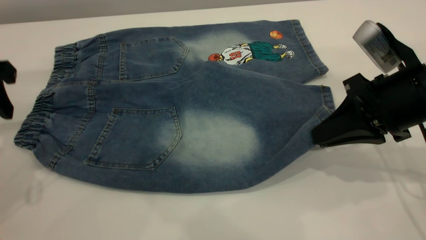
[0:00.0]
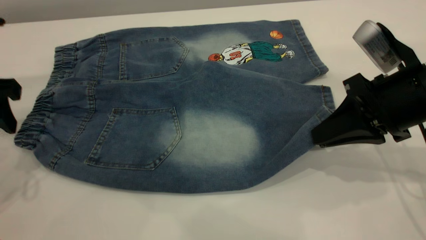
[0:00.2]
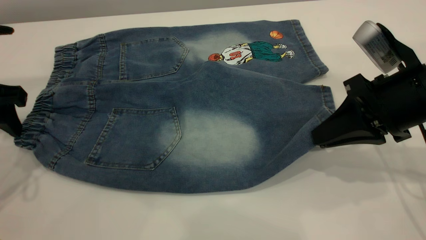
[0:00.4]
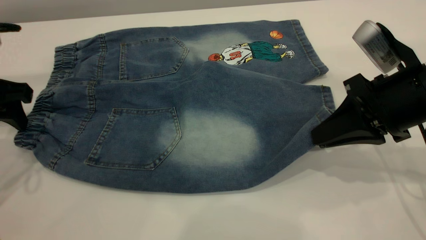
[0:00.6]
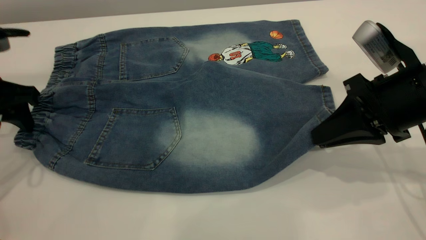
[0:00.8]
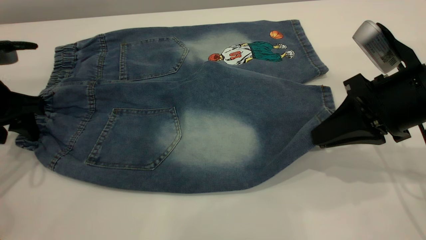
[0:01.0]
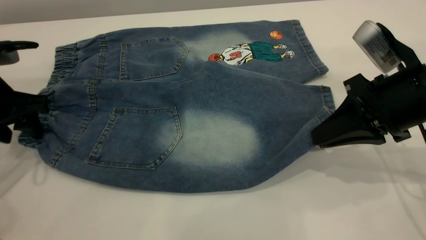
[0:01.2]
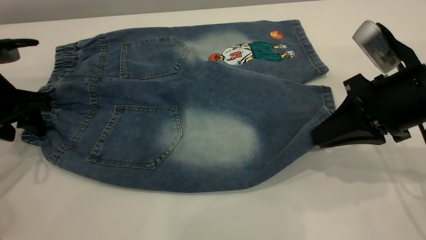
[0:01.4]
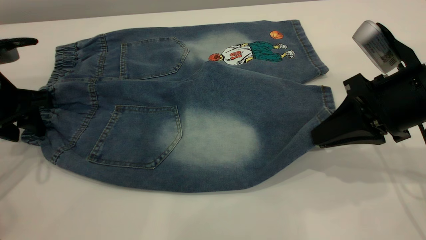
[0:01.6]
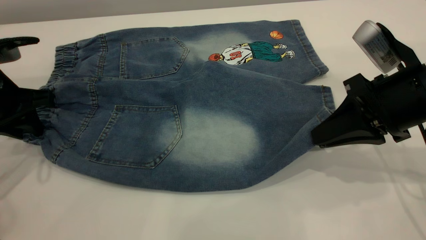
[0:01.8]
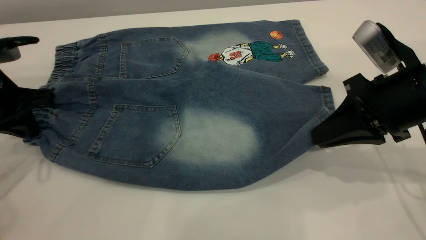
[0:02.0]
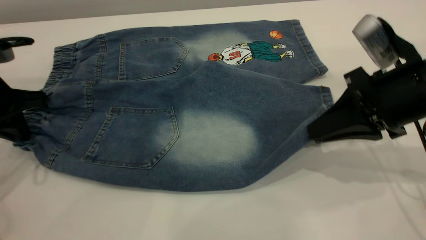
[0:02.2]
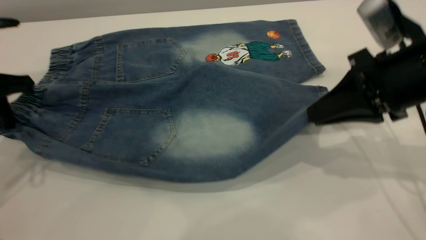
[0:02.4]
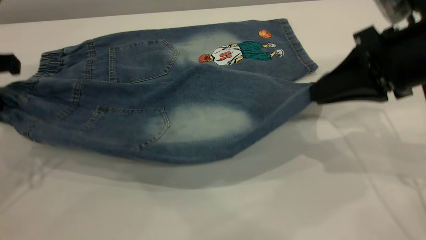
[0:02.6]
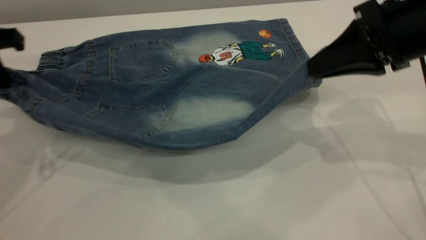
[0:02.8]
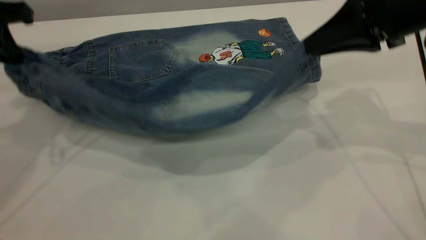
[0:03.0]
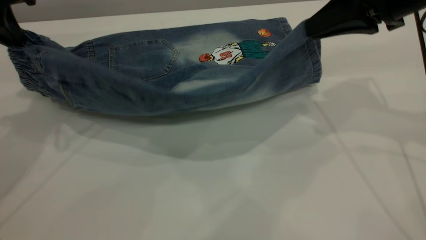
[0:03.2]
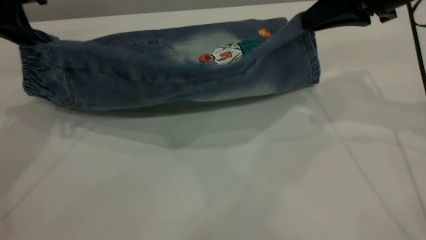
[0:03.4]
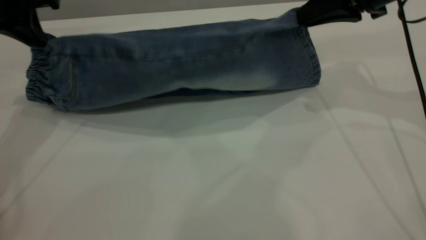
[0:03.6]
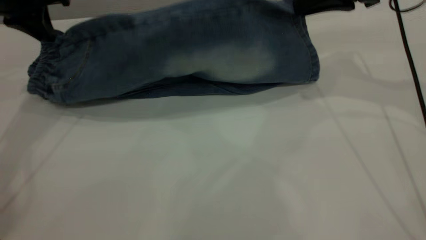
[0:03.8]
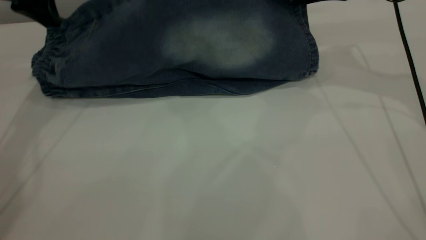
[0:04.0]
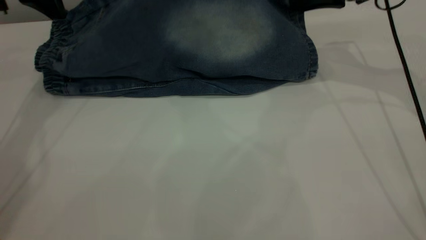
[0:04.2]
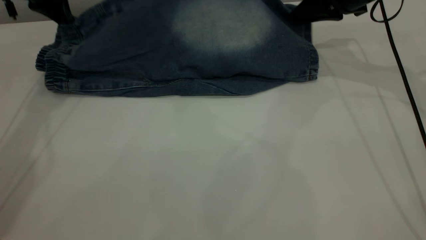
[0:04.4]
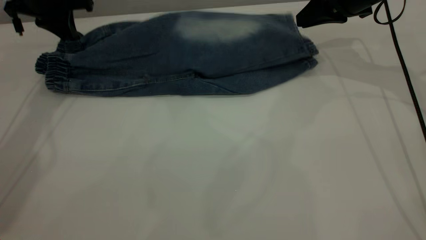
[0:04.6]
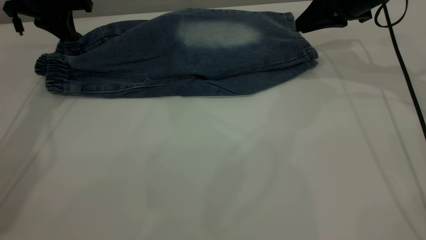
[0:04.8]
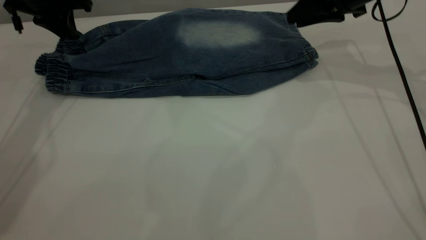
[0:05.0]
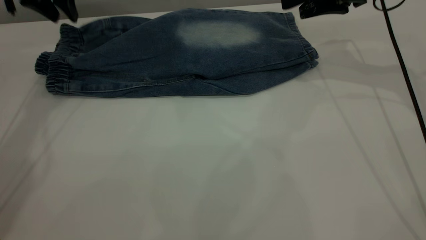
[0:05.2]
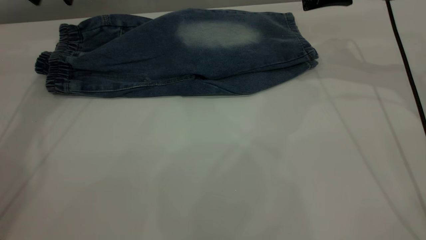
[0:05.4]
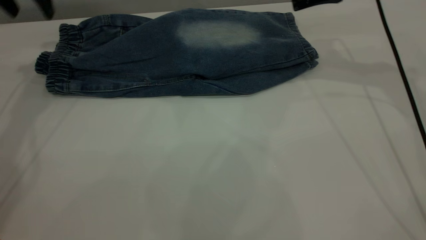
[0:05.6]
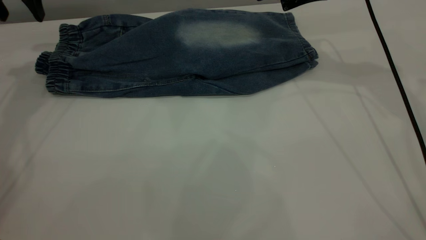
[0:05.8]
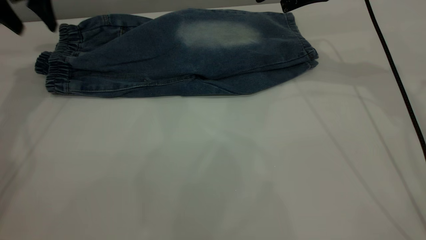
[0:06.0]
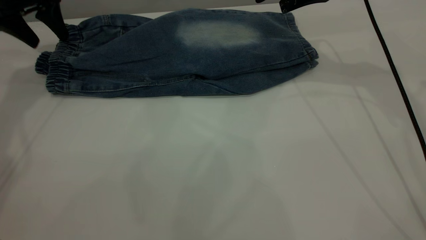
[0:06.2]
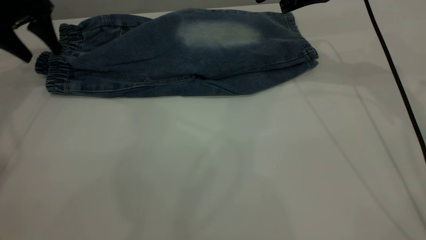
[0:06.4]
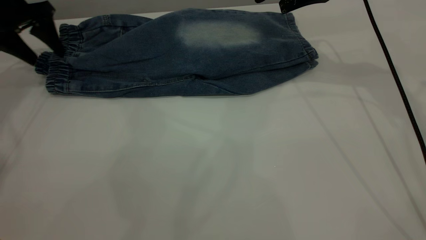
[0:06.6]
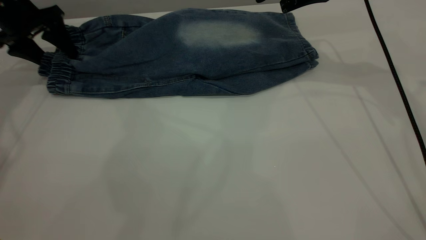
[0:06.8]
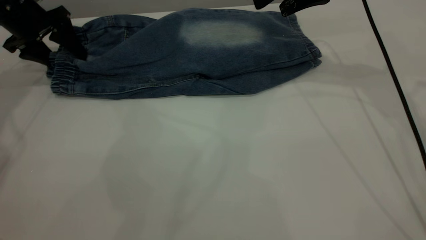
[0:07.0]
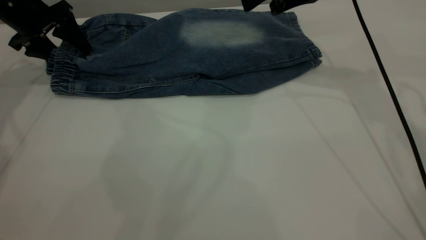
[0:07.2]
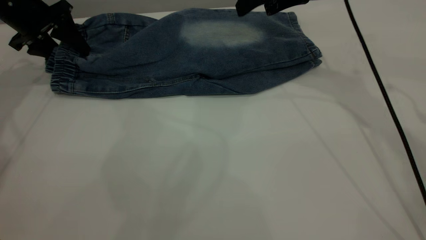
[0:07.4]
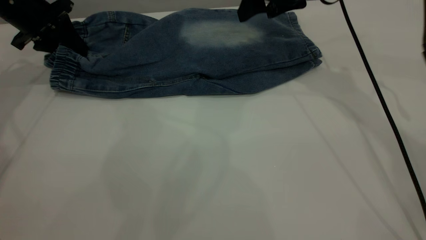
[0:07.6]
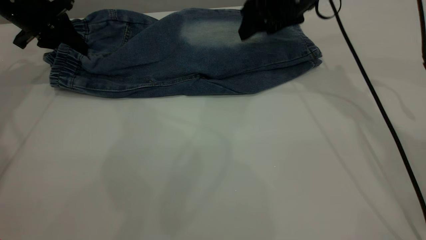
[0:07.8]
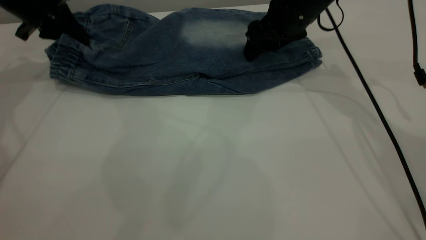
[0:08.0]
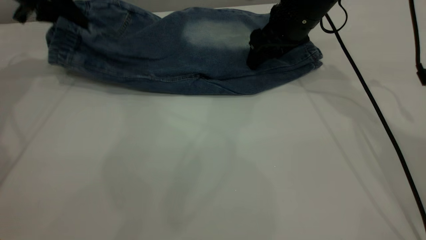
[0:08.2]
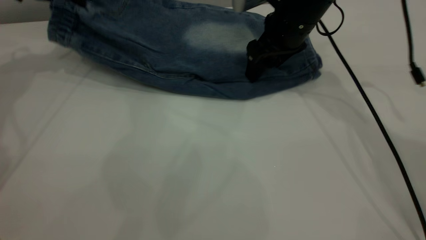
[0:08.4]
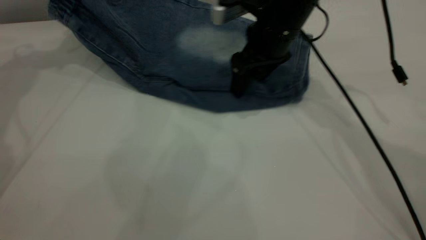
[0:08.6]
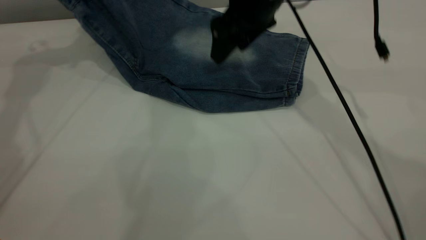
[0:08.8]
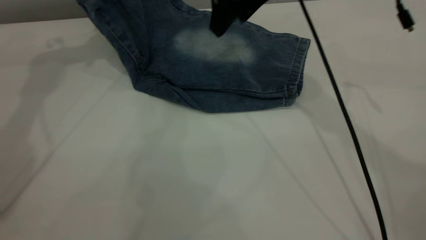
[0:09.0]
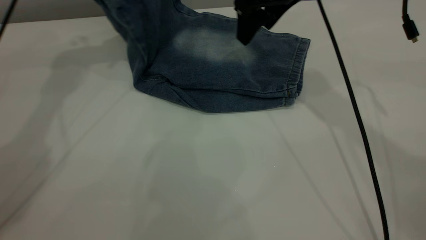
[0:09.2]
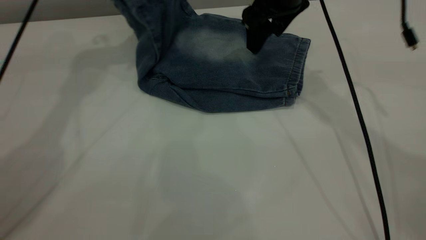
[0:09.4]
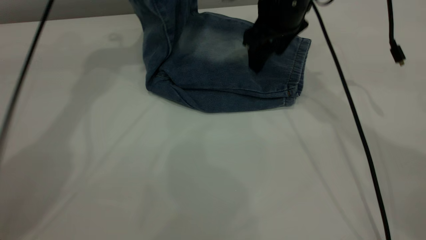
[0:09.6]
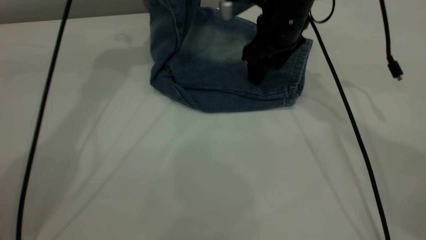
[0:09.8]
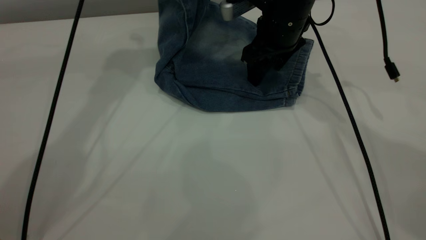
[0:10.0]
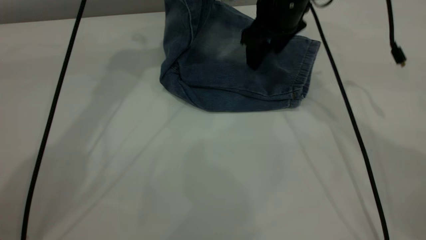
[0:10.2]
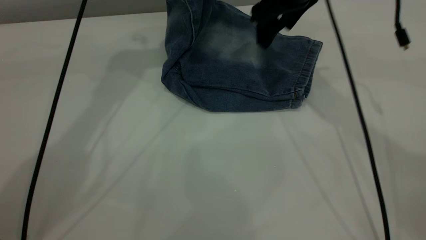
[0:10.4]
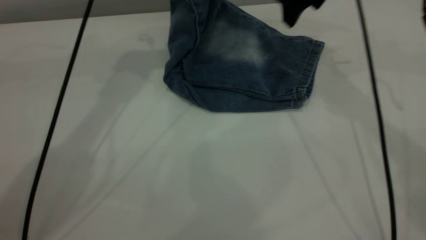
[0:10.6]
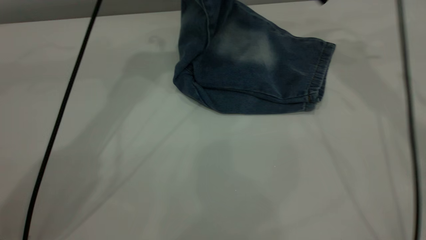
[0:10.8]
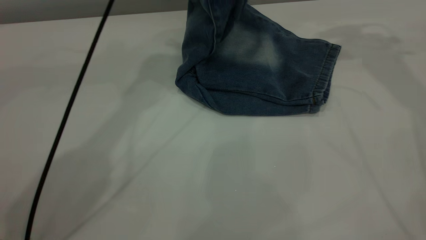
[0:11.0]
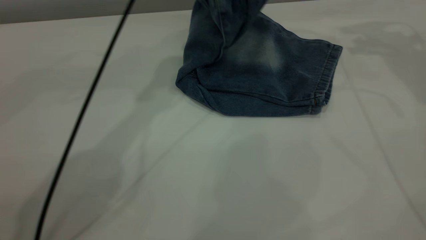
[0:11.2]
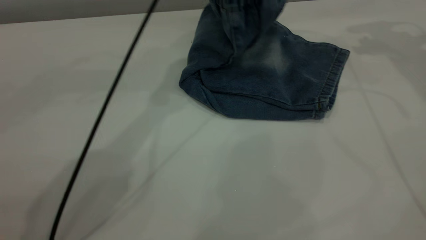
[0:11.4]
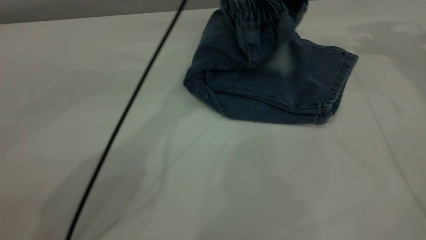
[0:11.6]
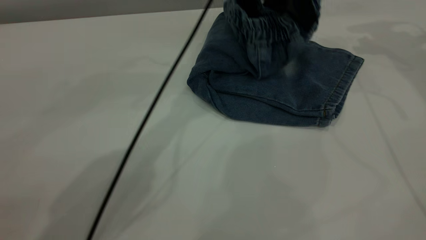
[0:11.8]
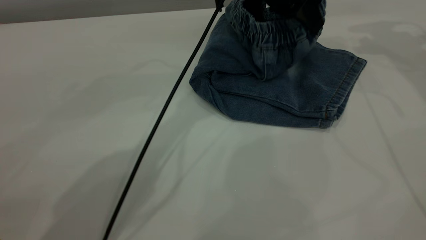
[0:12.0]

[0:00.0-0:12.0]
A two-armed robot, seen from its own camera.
Step, 0:00.0 to 0:05.4: Fold the bottom of the pants upward.
0:00.0 to 0:01.6: The left gripper shifts about 5 cm downward.
0:01.6 to 0:03.0: The right gripper heads upward and forward, covering roughly 10 cm. The left gripper goes approximately 10 cm upward, and closes its fingers.
0:03.0 to 0:04.4: Both grippers travel together forward, roughly 15 cm.
0:04.4 to 0:06.0: The left gripper opens its fingers, while the right gripper moves upward, roughly 5 cm, and opens up.
0:06.0 to 0:07.6: The right gripper moves some 5 cm. The left gripper travels downward by about 5 cm, and closes.
0:07.6 to 0:09.0: The right gripper ends up approximately 10 cm from where it was, while the left gripper goes roughly 15 cm upward and to the right.
0:09.0 to 0:10.4: The right gripper travels downward and back again, about 10 cm each way. Meanwhile the left gripper travels to the right by some 15 cm.
0:10.4 to 0:12.0: The right gripper moves to the right, about 20 cm; the left gripper travels to the right and downward by approximately 20 cm.

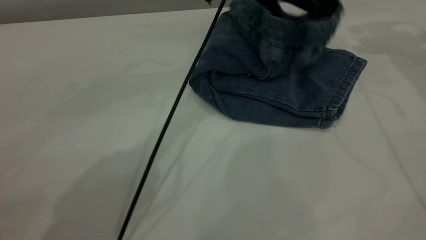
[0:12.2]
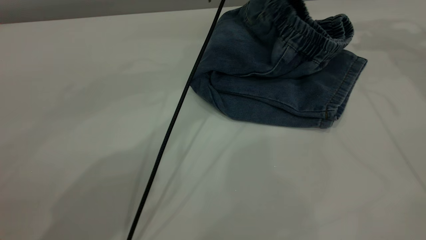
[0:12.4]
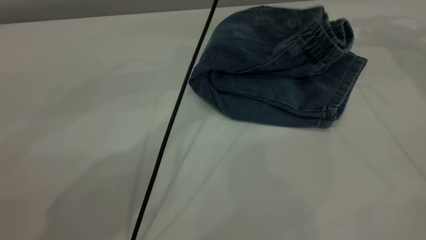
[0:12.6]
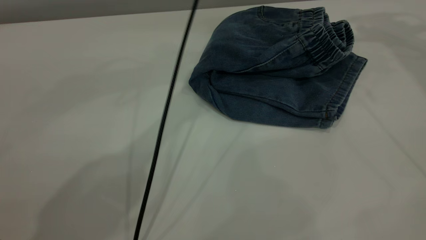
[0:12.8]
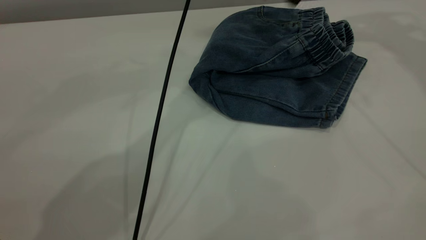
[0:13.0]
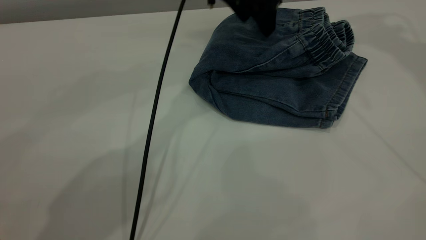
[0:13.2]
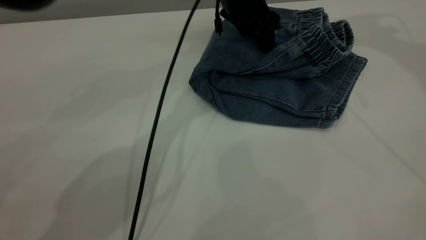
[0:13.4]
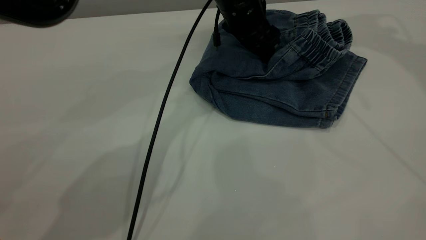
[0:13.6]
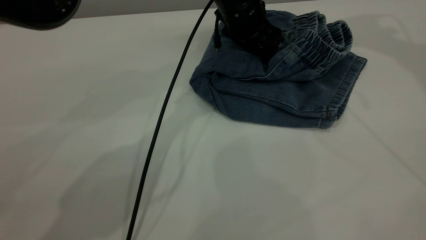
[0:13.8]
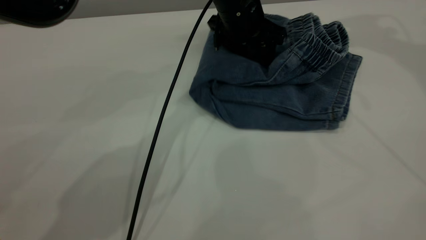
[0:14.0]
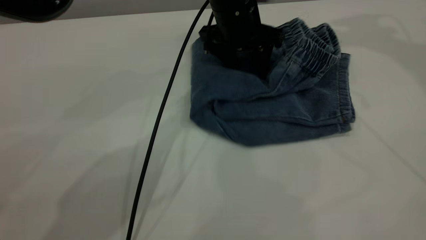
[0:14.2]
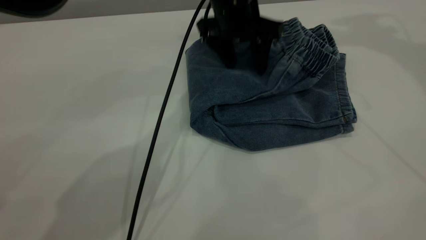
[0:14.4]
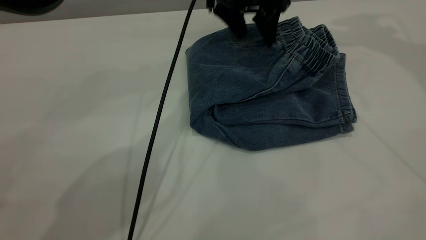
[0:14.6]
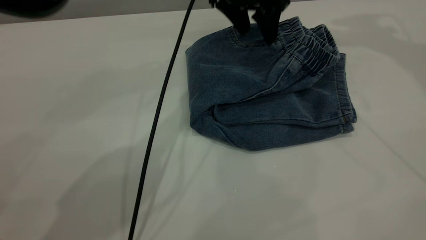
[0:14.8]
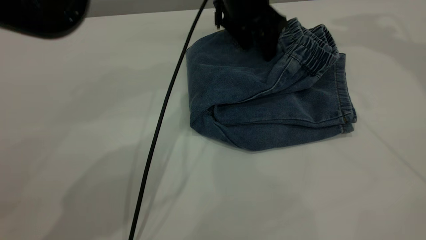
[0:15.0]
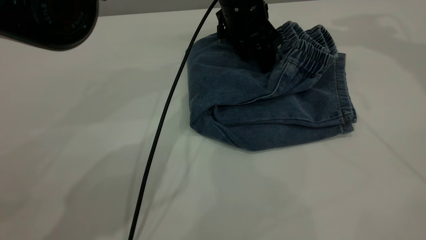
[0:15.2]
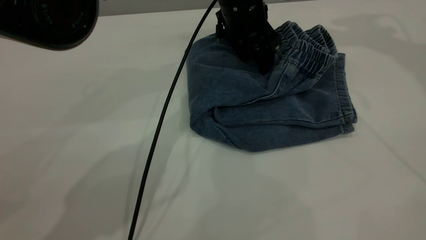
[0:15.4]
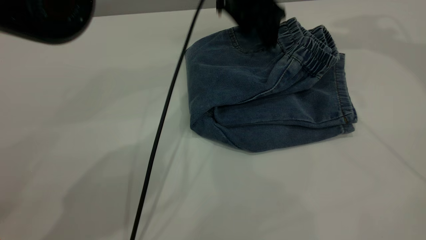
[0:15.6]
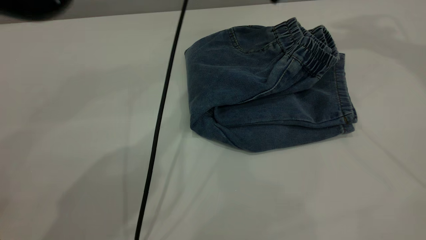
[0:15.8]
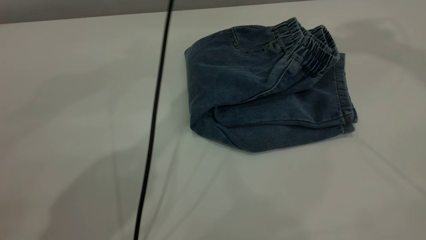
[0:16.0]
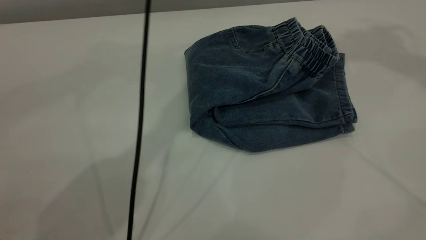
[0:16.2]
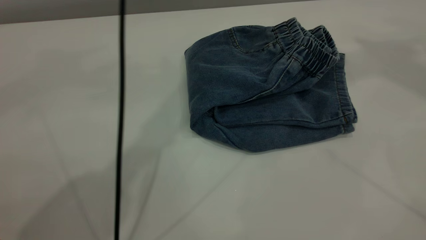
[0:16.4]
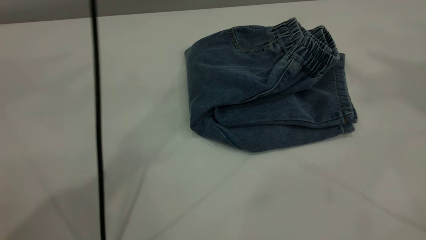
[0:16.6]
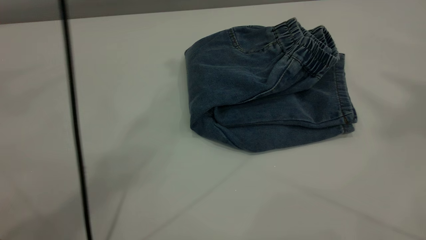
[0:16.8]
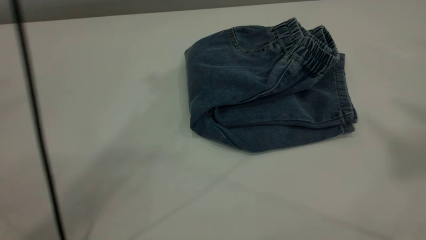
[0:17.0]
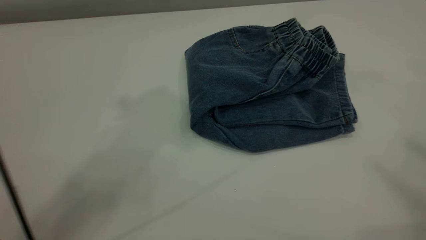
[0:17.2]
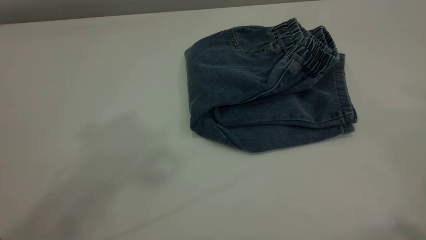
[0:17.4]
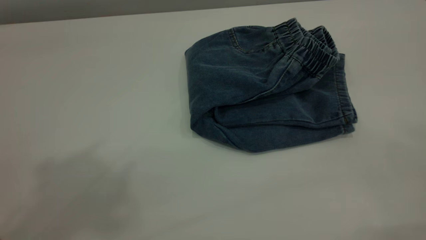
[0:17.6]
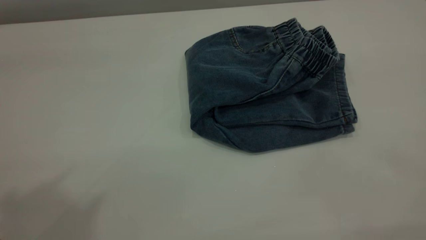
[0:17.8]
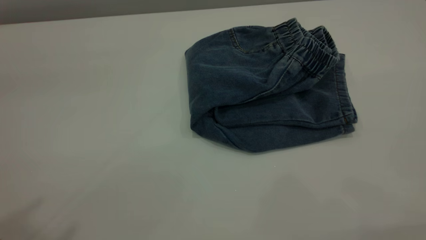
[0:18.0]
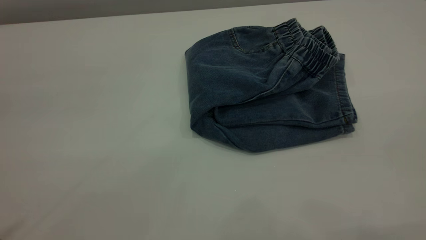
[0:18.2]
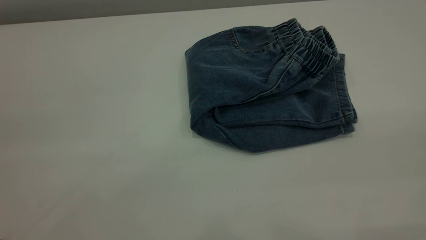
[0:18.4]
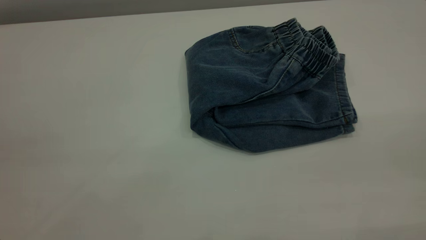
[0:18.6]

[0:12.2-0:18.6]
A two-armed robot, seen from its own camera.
0:12.2 to 0:13.8: The right gripper travels upward by approximately 10 cm, while the left gripper travels downward by roughly 10 cm.
0:13.8 to 0:15.4: The left gripper moves about 10 cm upward and comes back.
0:15.4 to 0:17.0: The right gripper travels backward and upward by roughly 40 cm, while the left gripper is displaced upward by some 40 cm.
0:17.0 to 0:18.6: The left gripper travels backward, to the left and downward by approximately 35 cm.
